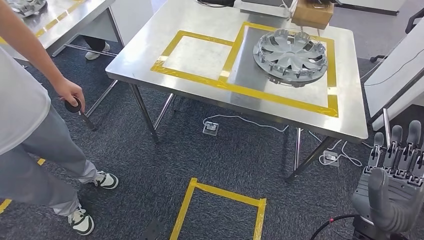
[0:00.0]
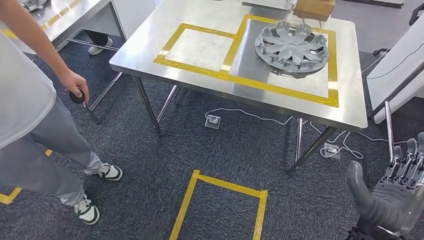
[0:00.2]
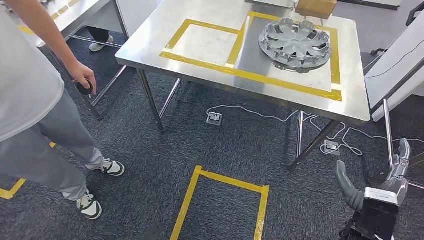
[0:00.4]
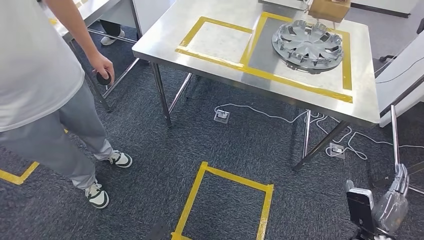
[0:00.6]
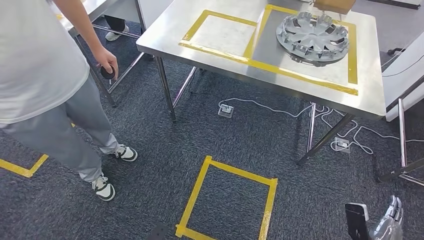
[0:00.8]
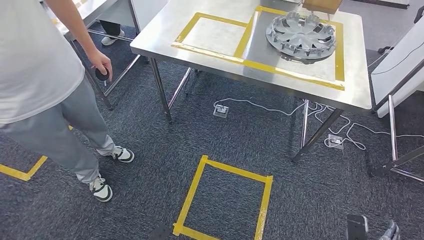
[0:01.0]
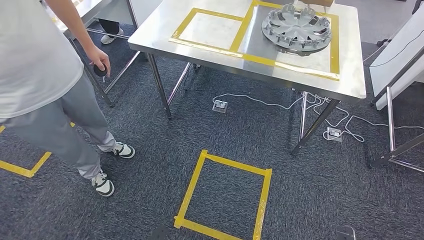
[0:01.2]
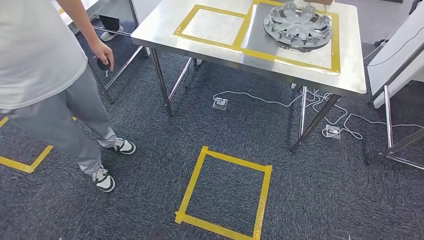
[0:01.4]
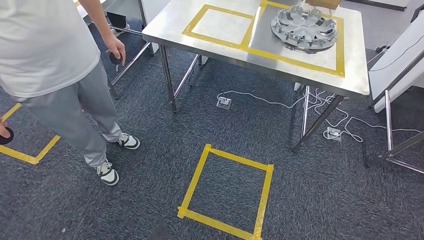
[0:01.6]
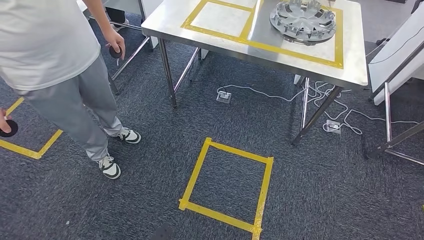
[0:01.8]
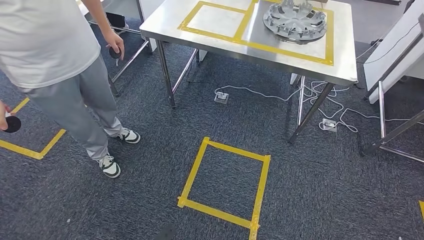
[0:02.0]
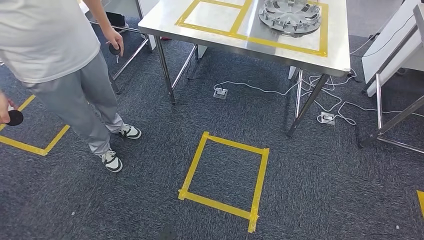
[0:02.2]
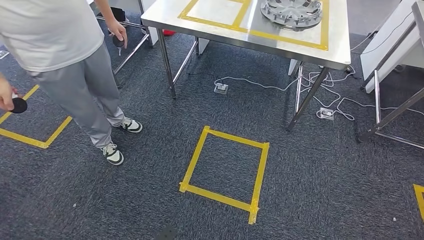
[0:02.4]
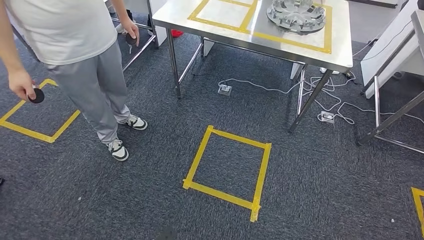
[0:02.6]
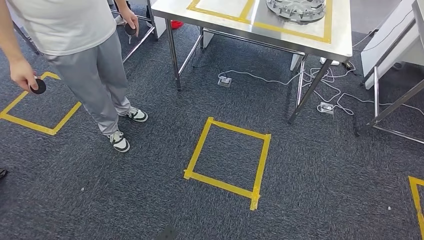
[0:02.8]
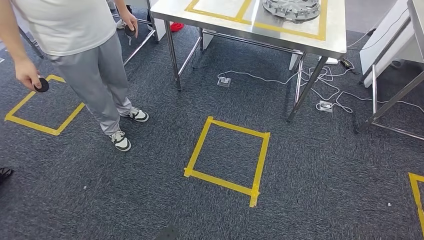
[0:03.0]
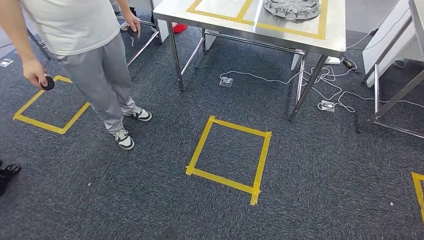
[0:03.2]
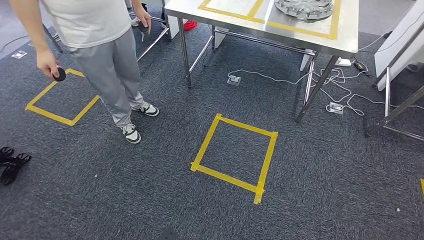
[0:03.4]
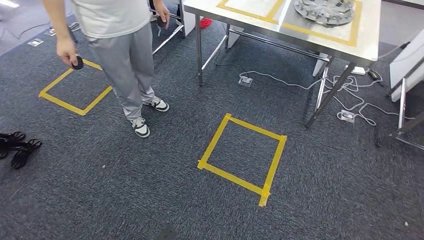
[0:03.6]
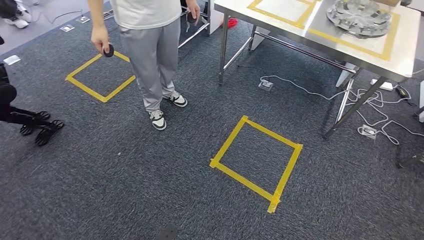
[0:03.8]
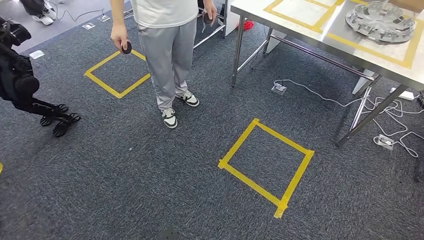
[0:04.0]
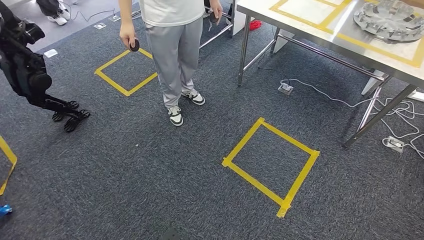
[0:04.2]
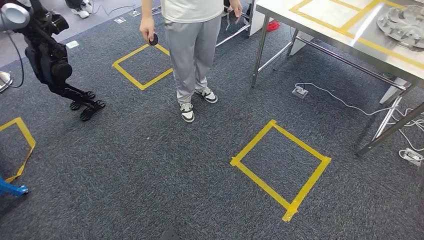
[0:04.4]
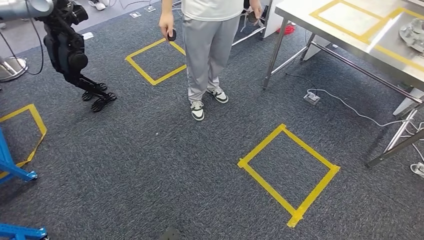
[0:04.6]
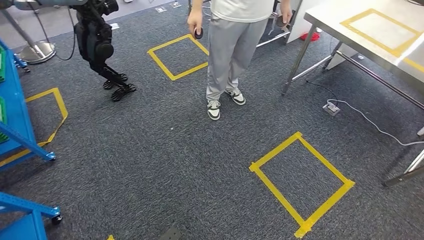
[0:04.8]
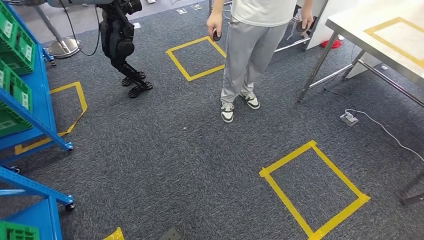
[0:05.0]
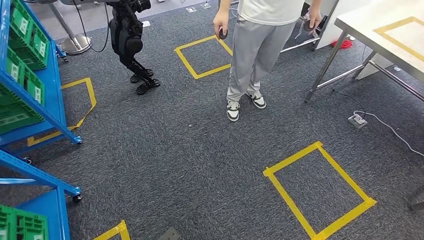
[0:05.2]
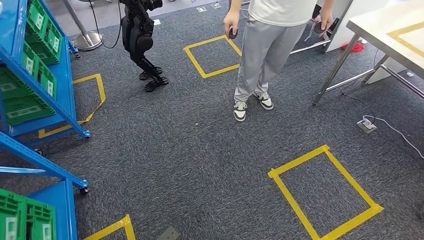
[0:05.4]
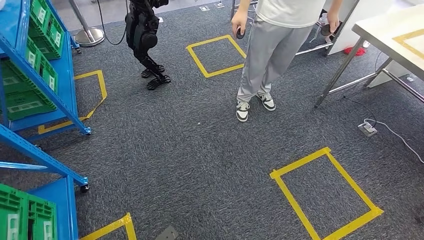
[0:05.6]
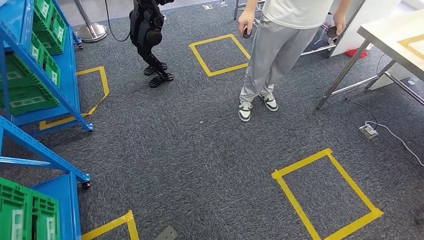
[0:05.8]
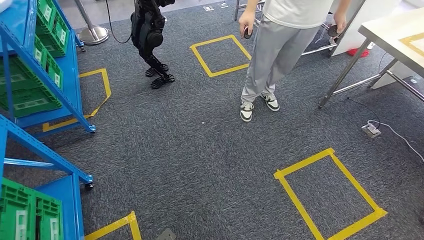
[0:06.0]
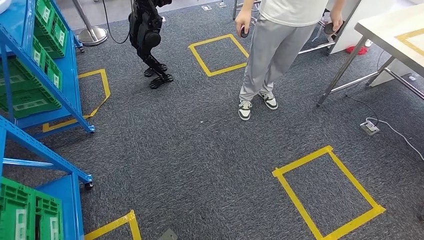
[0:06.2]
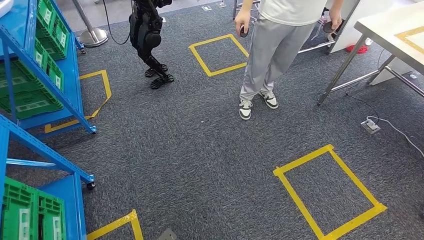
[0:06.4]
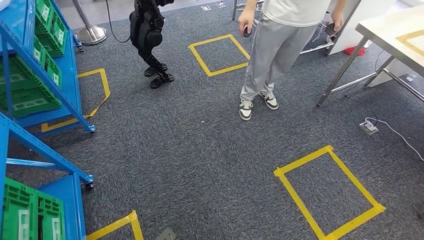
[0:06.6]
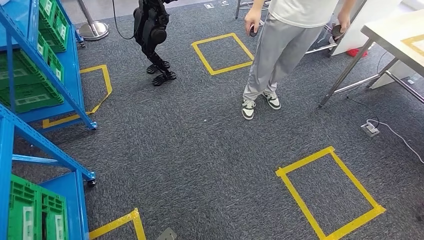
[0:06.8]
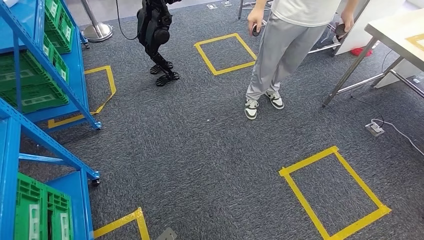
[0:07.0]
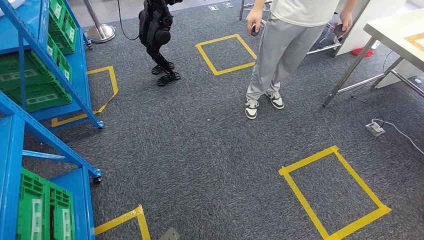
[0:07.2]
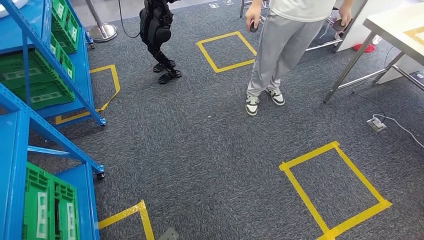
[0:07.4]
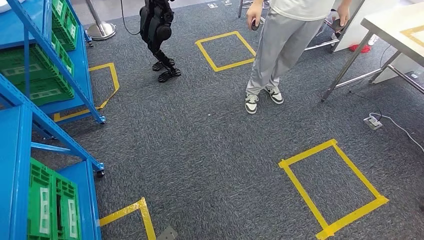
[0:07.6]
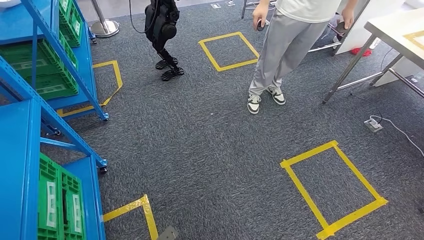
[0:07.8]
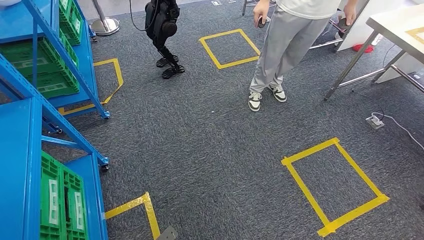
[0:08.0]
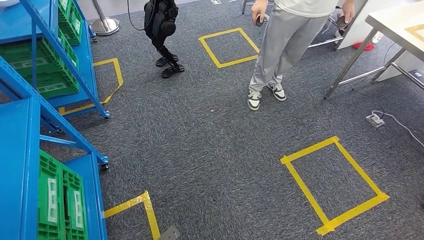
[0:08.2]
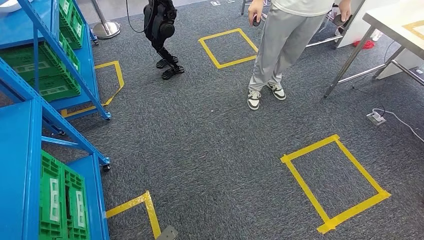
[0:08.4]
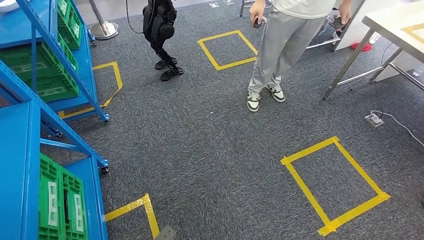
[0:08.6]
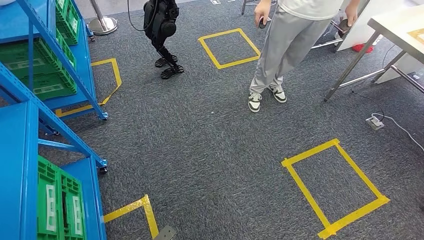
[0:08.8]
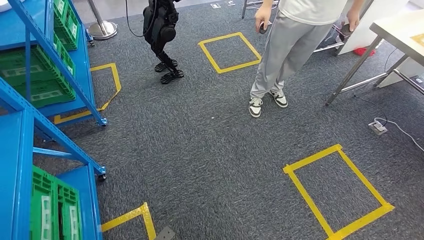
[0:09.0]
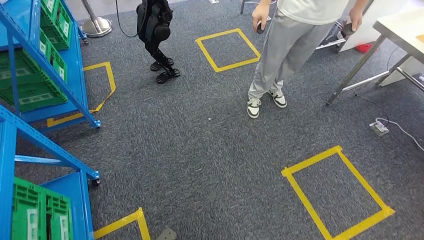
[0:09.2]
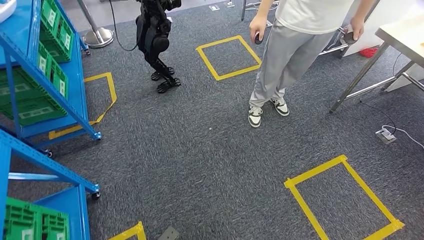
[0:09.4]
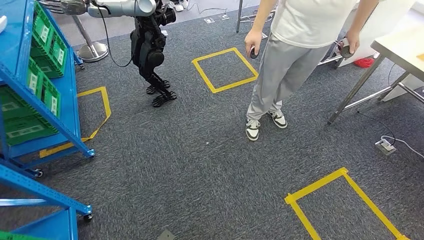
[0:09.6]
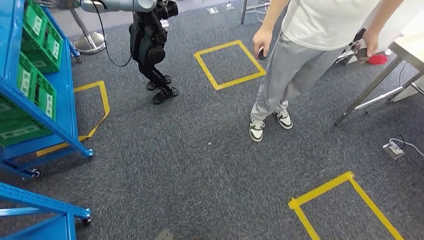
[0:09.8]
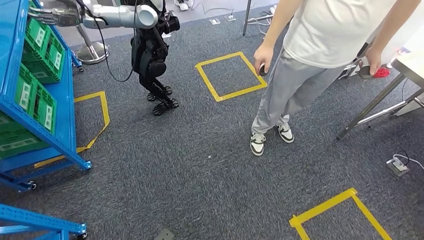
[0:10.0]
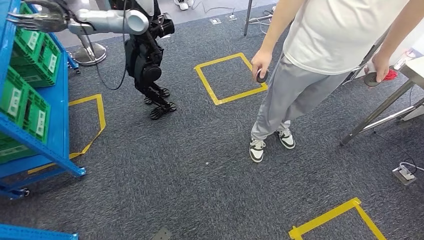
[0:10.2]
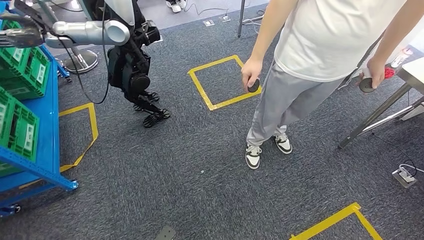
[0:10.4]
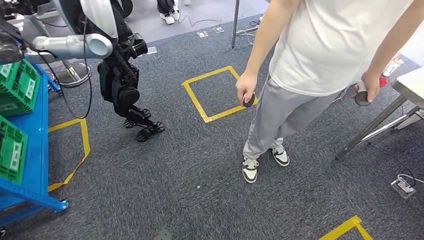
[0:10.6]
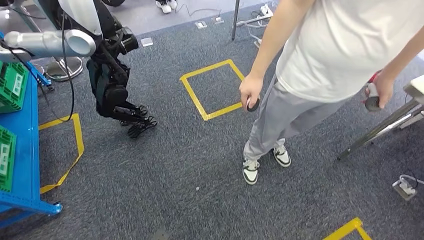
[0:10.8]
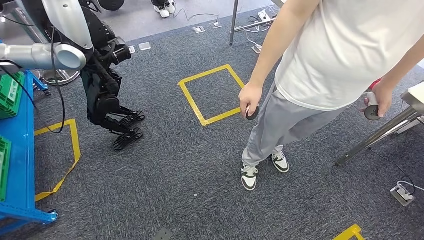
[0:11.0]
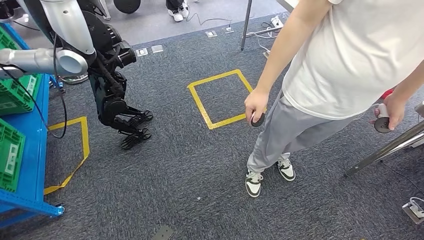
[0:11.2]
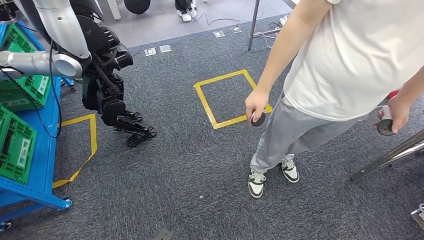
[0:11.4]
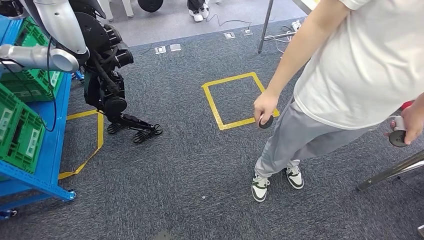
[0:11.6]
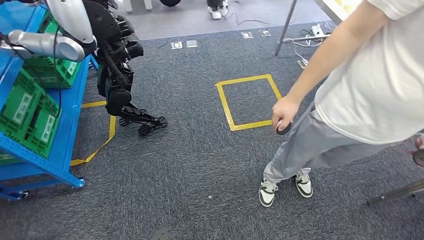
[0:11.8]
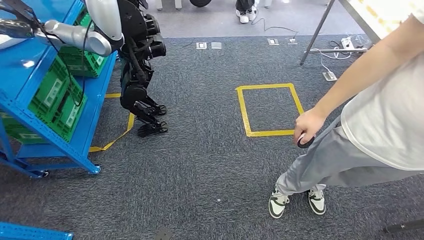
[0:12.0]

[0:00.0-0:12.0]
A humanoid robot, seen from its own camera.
0:07.6 to 0:09.0: There are only small adjustments of the hands.

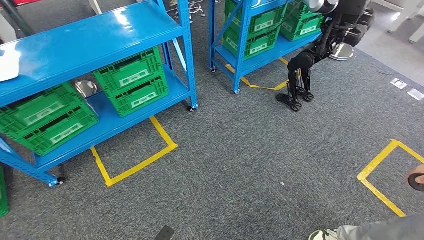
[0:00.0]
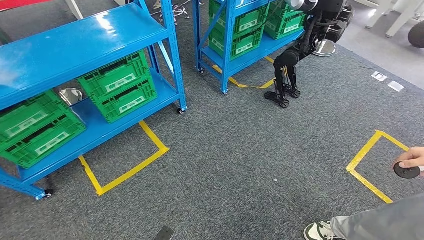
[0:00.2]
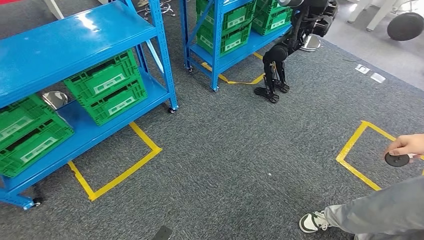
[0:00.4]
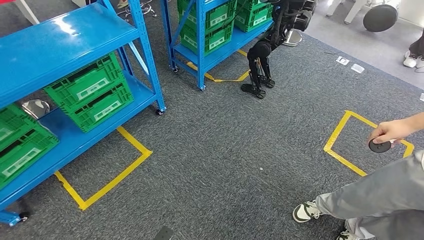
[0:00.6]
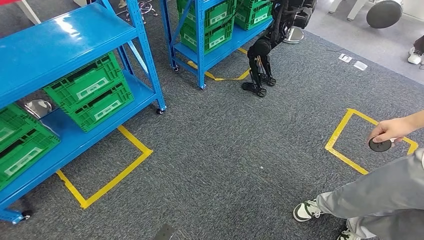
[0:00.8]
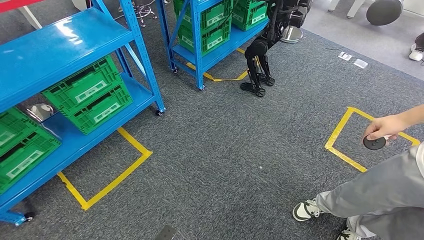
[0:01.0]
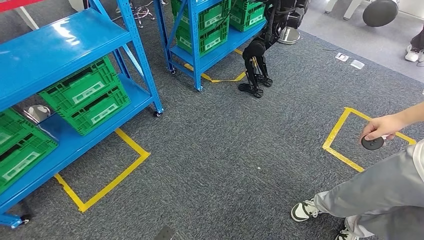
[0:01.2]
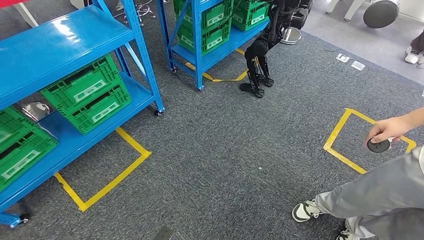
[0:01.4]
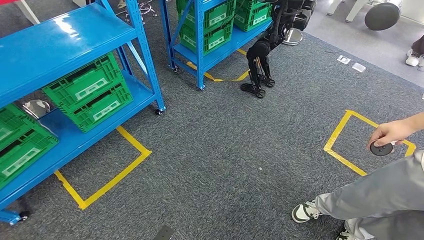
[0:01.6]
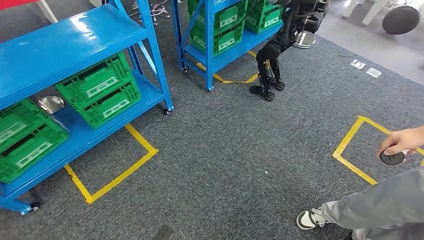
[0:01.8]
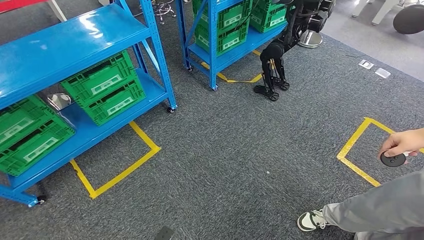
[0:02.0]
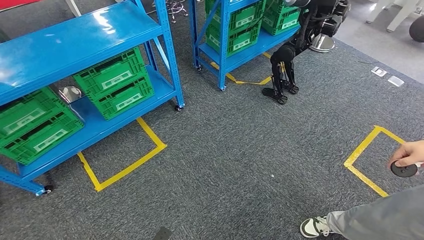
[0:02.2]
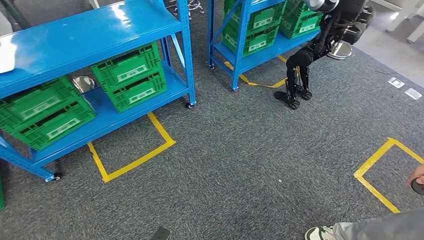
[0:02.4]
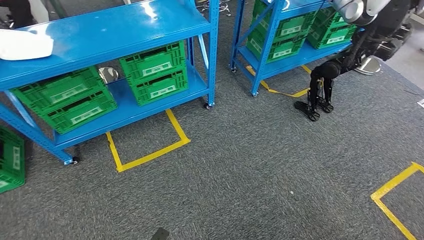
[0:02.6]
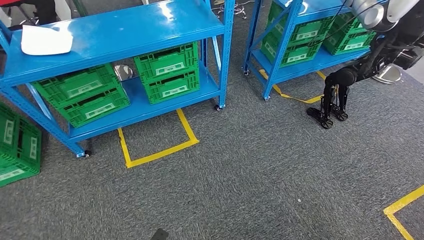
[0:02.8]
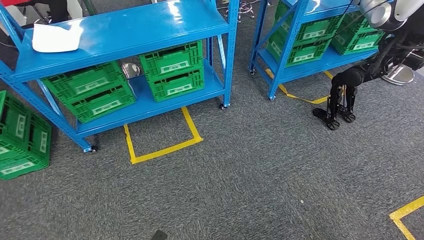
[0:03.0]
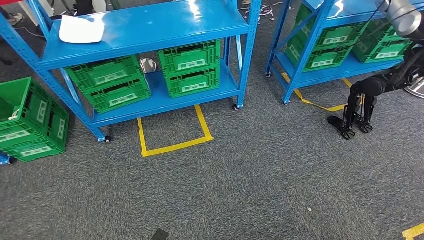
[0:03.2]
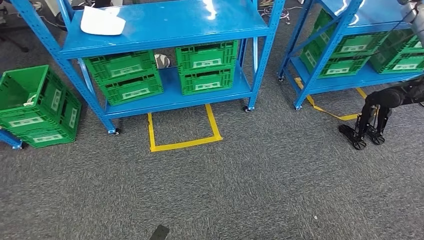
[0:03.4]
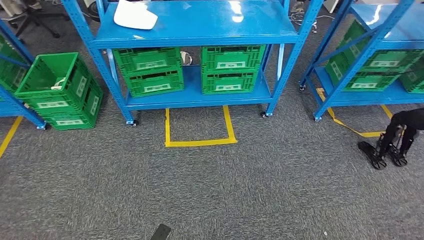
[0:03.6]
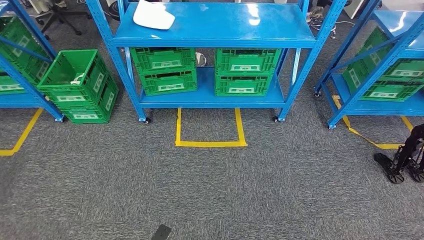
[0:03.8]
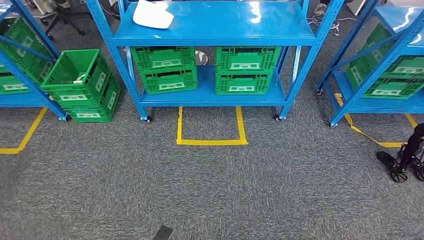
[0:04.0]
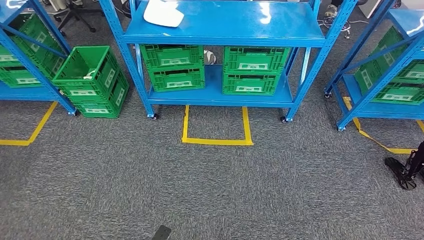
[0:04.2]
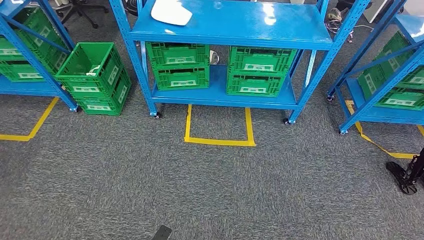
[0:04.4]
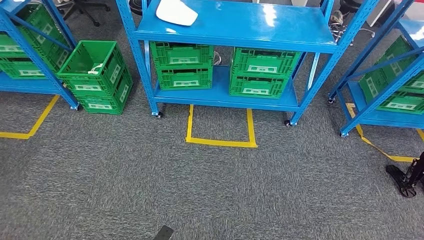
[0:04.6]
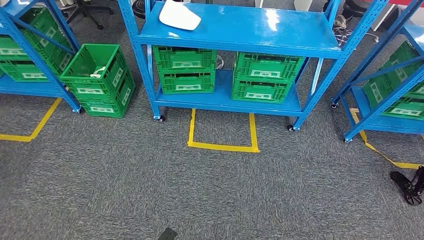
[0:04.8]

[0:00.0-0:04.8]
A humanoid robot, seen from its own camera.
Step, 0:00.0 to 0:04.8: Return to the initial position at the workbench.
